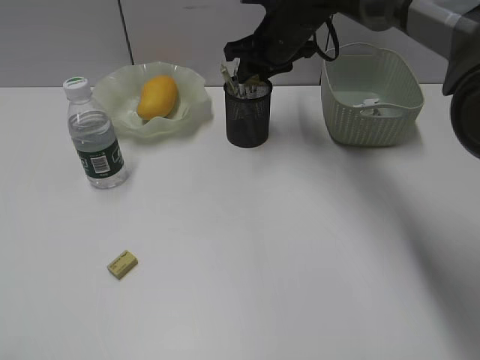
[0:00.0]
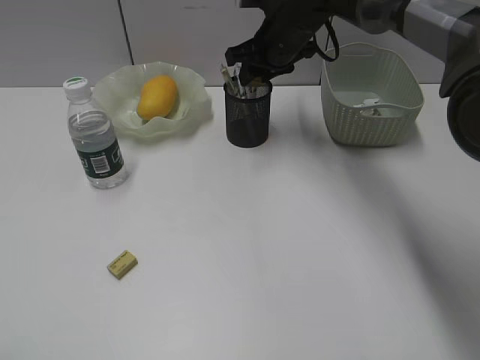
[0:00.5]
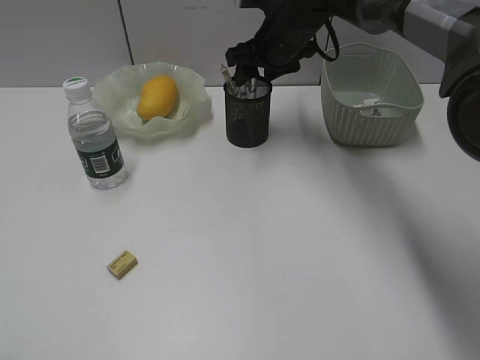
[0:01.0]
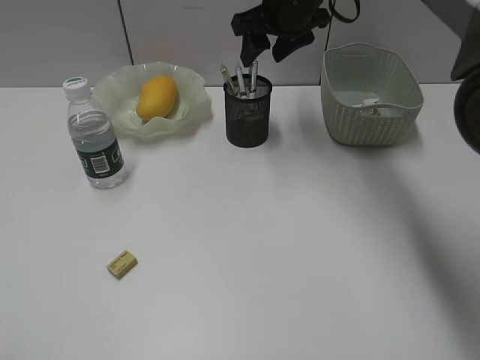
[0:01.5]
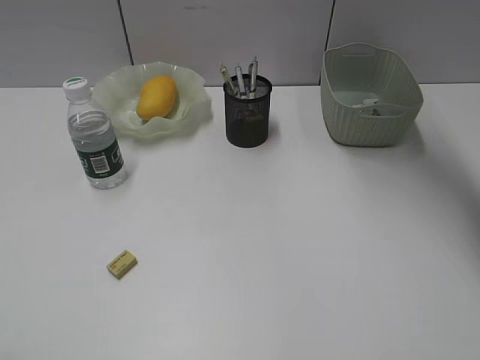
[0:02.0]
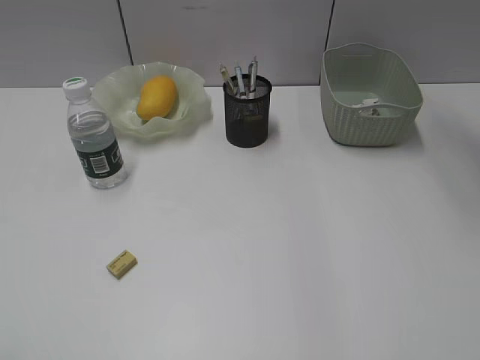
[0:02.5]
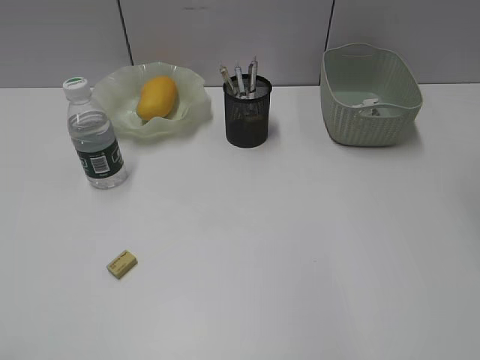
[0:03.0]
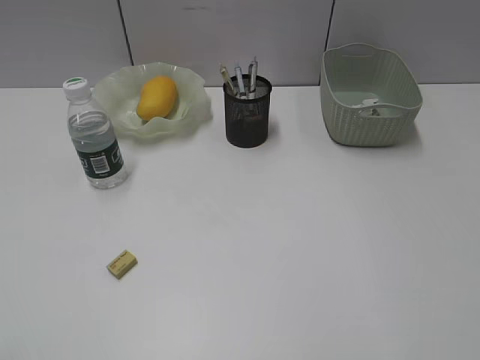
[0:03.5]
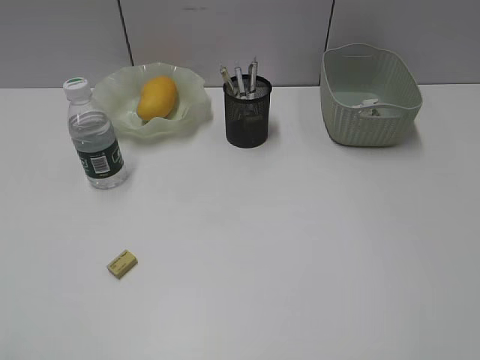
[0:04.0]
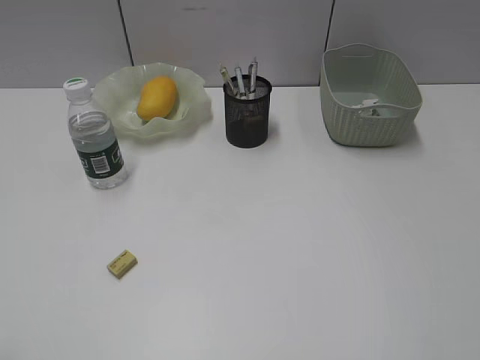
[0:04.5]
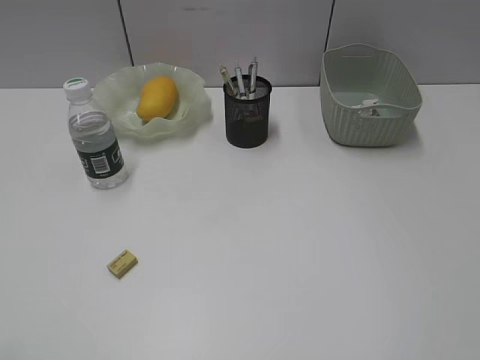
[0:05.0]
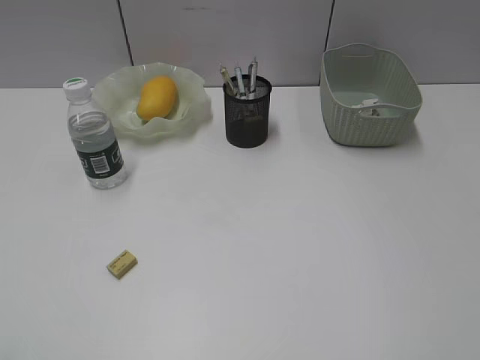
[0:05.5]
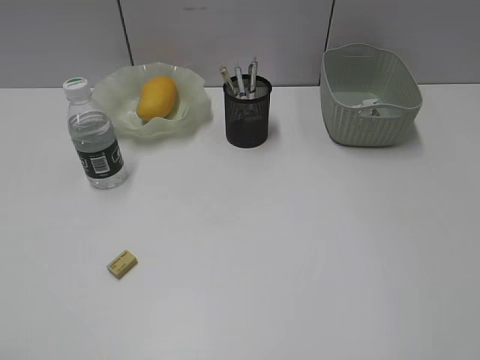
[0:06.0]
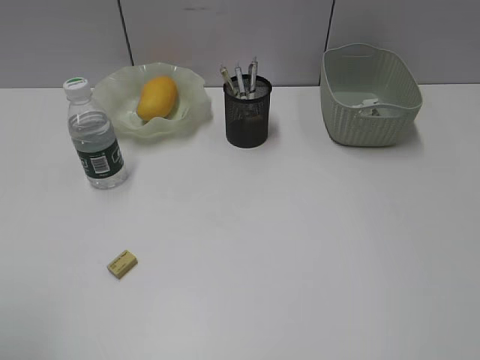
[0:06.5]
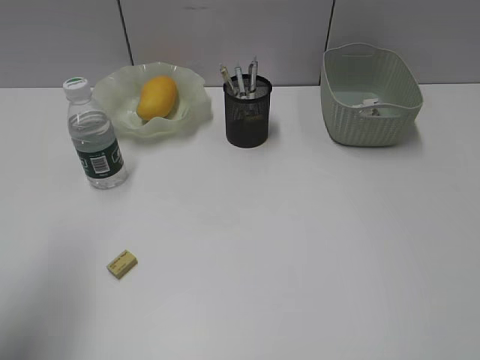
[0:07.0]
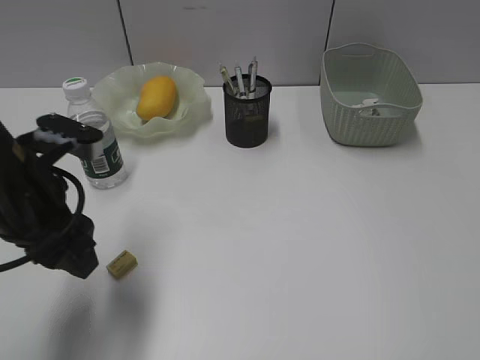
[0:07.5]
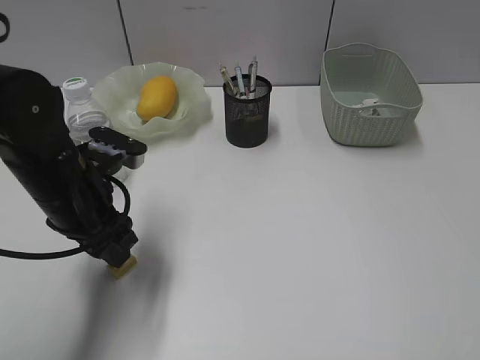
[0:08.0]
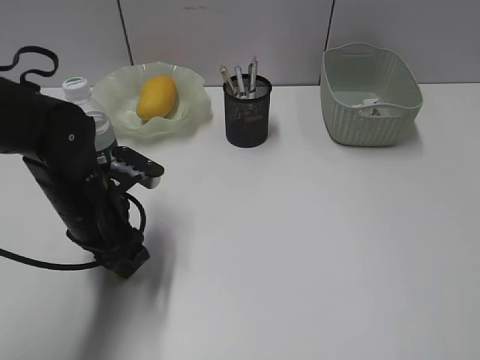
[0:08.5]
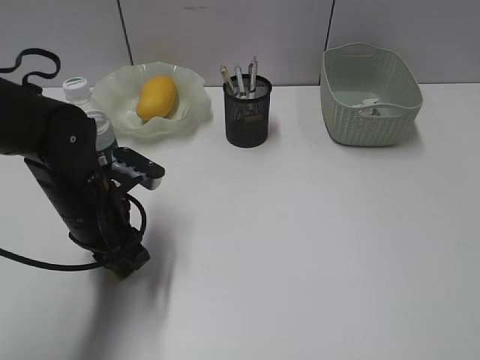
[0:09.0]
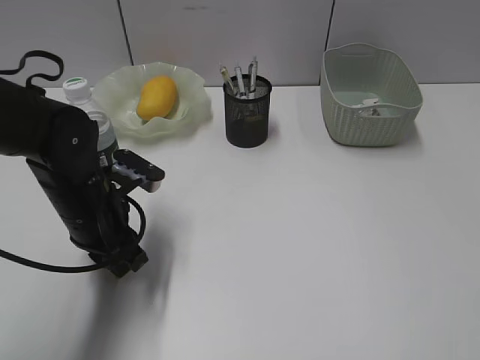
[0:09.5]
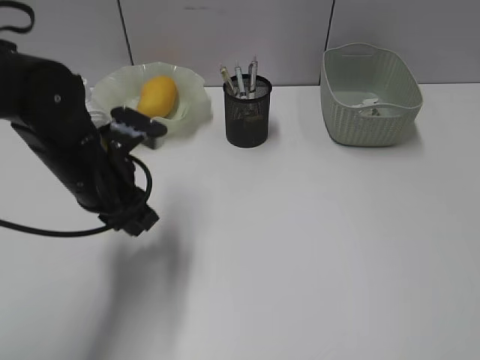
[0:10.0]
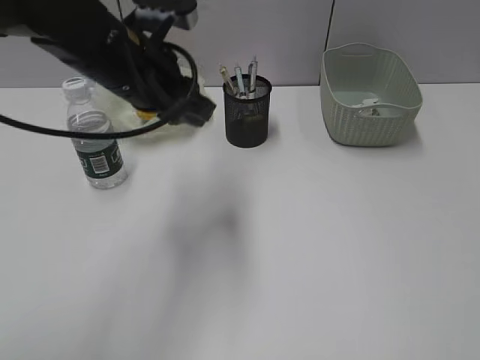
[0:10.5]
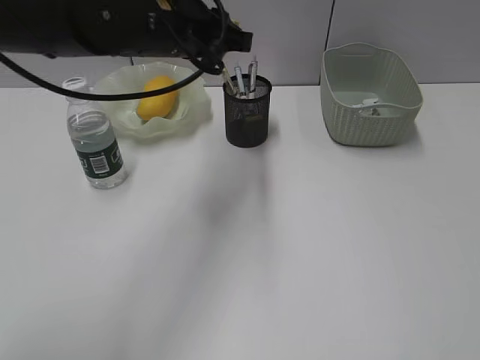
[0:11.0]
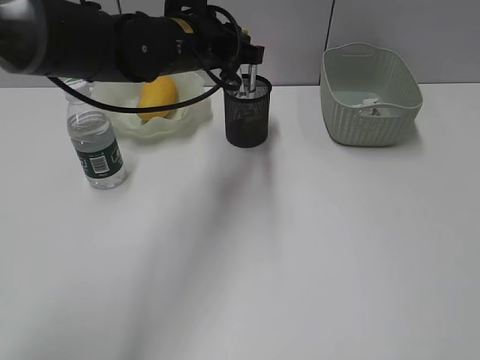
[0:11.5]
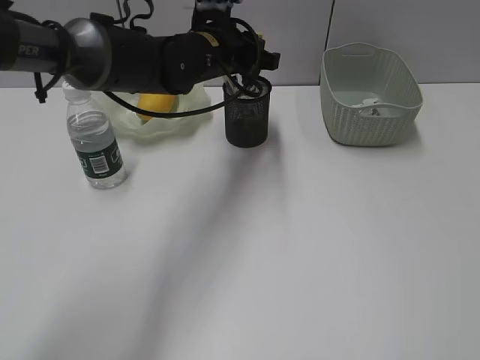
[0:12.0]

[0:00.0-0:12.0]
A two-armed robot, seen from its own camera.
Step, 0:01.5 to 0:09.5: Grasp the eraser with left gripper.
0:00.0 to 0:02.0: The right gripper is displaced upward and to the right by about 15 cm.
0:02.0 to 0:04.0: The right gripper moves backward, roughly 40 cm.
0:06.0 to 0:08.0: The left gripper goes about 35 cm forward, to the right and downward.
0:08.0 to 0:10.0: The left gripper closes its fingers.
0:10.0 to 0:12.0: The left gripper is displaced forward, to the right and upward by about 20 cm.

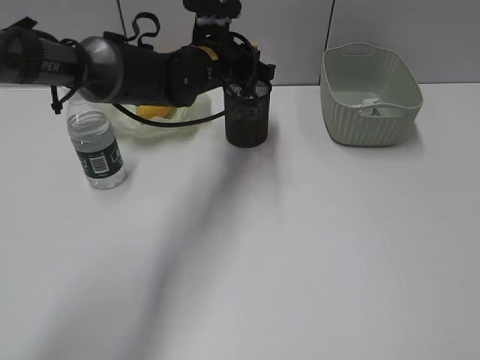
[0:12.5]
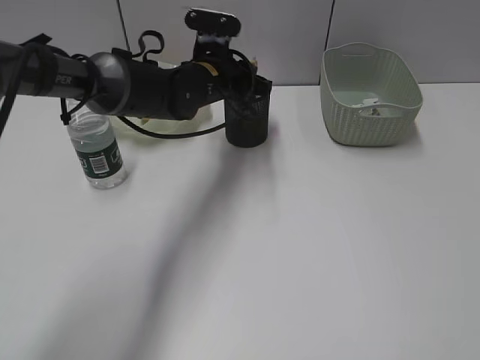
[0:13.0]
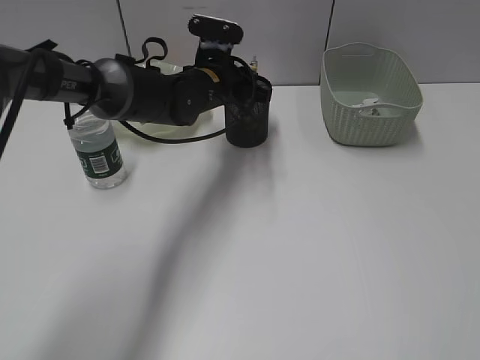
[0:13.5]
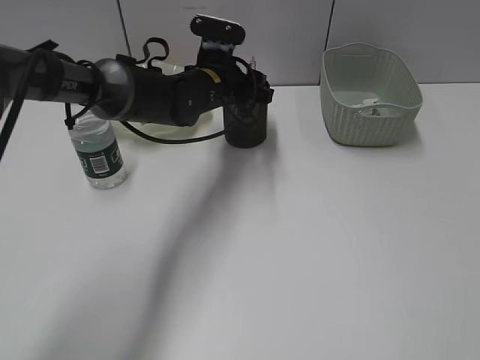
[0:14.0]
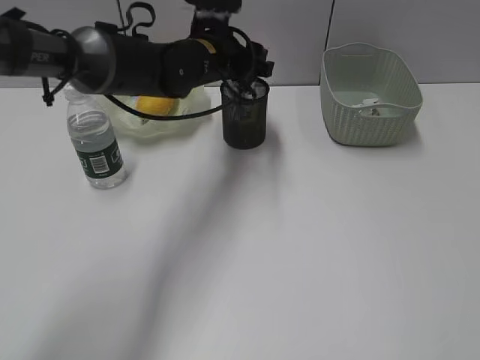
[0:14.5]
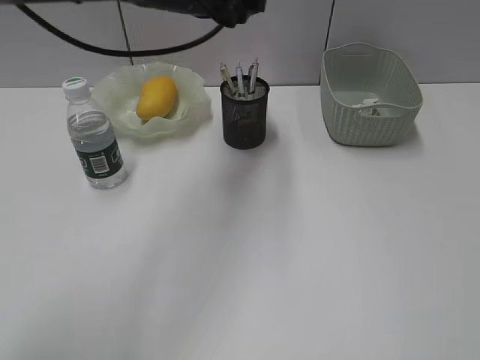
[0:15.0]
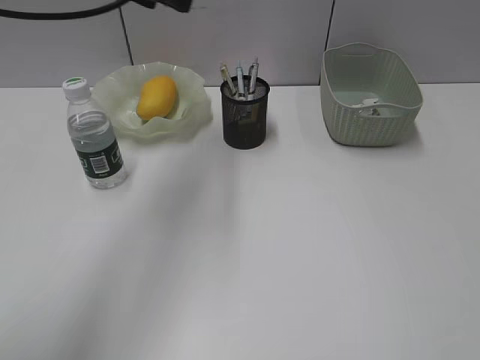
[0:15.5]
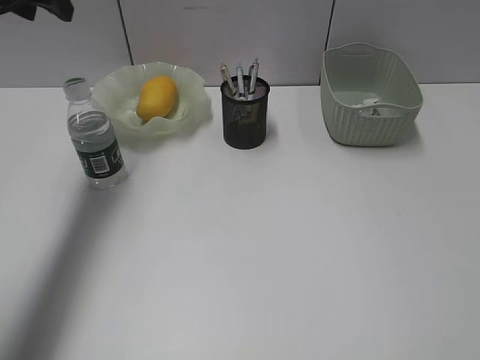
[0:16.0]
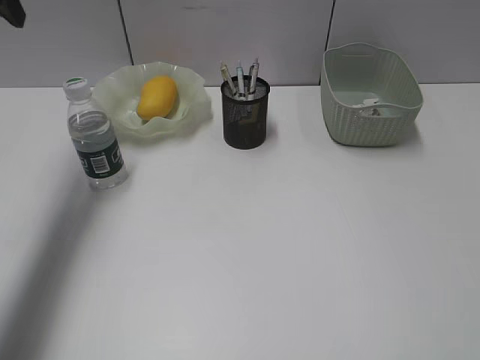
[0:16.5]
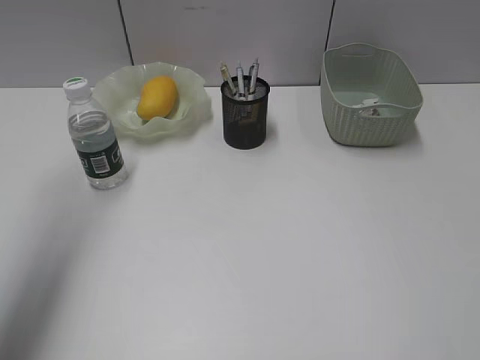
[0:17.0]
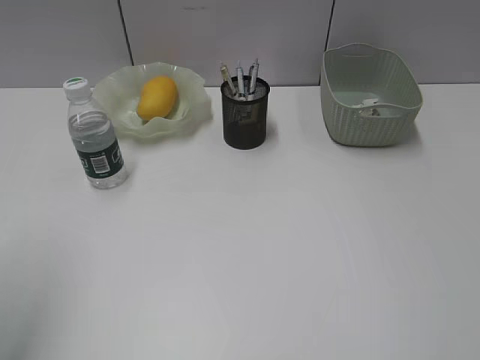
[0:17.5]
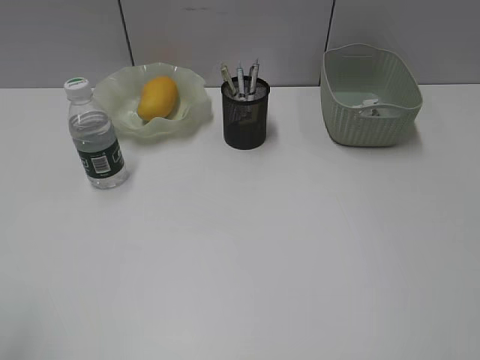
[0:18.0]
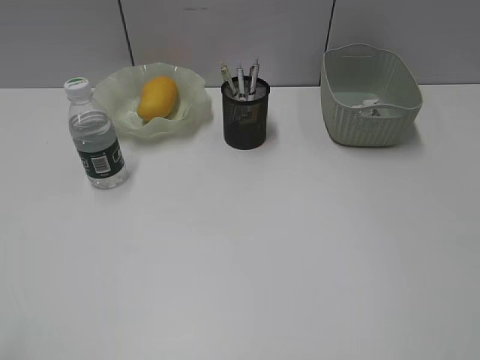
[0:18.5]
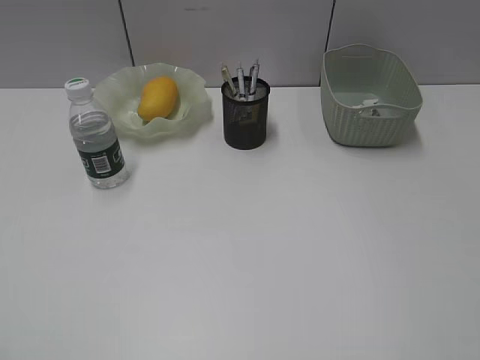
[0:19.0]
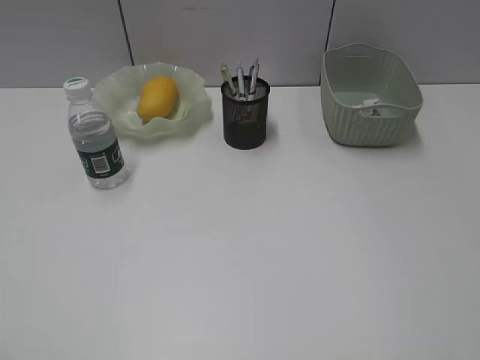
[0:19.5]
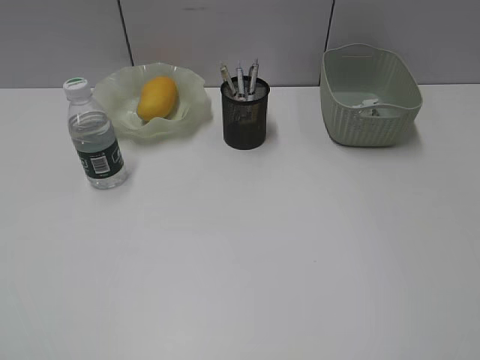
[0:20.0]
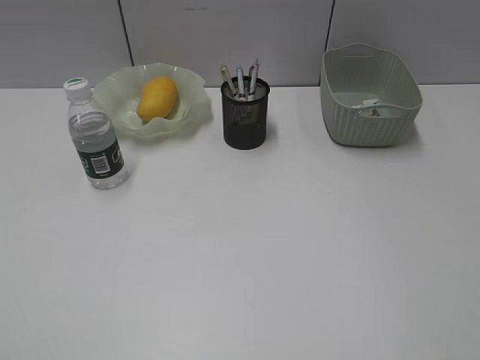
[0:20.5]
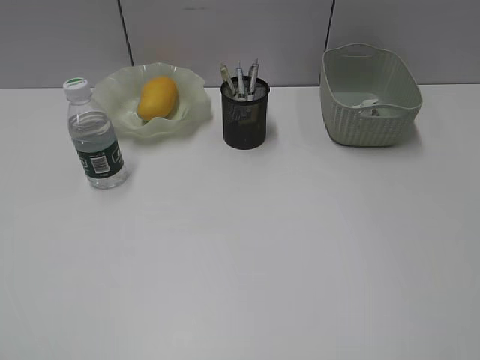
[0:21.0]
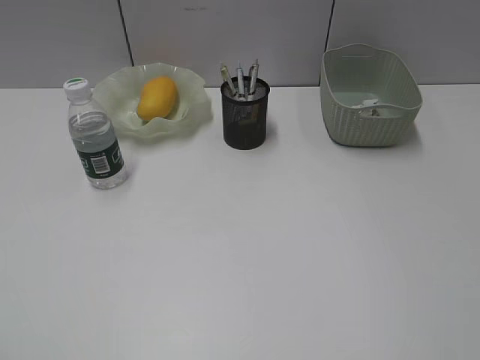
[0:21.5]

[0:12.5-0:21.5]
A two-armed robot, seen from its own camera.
0:12.5 to 0:14.5: The left gripper opens its fingers.
0:14.5 to 0:17.0: The left gripper goes roughly 35 cm to the left, upward and backward.
0:17.0 to 0:19.5: The left gripper is displaced backward by roughly 30 cm.
0:19.5 to 0:21.5: Neither gripper changes place.
